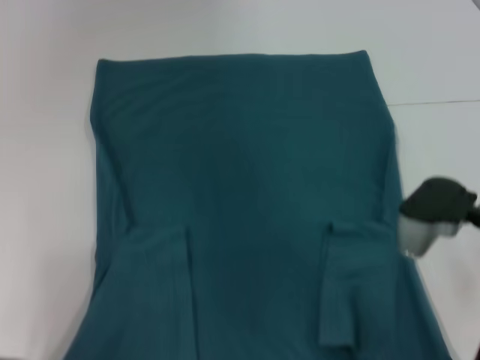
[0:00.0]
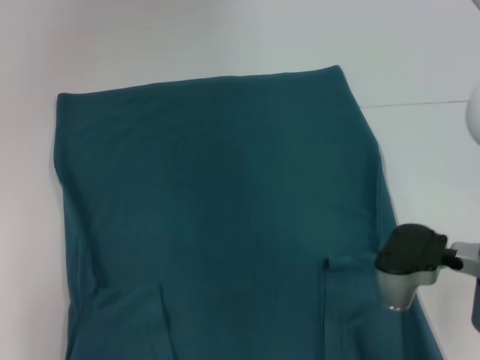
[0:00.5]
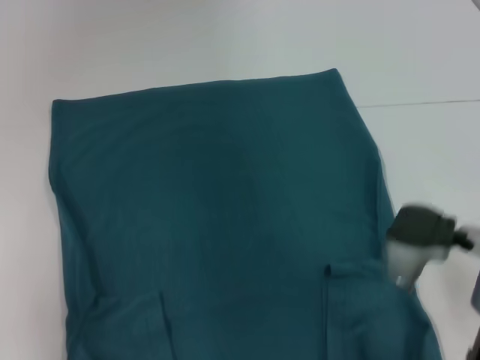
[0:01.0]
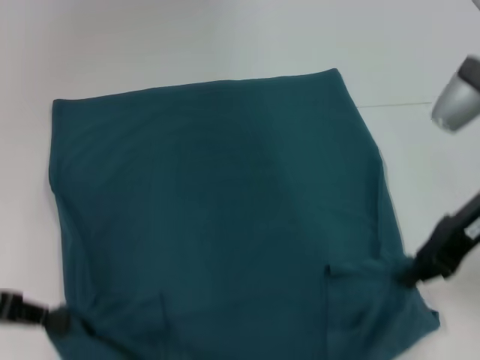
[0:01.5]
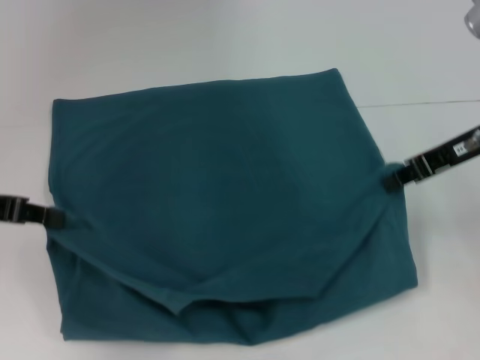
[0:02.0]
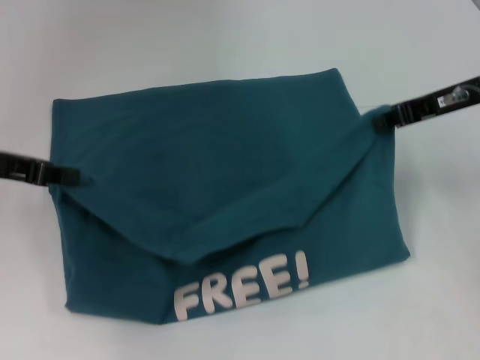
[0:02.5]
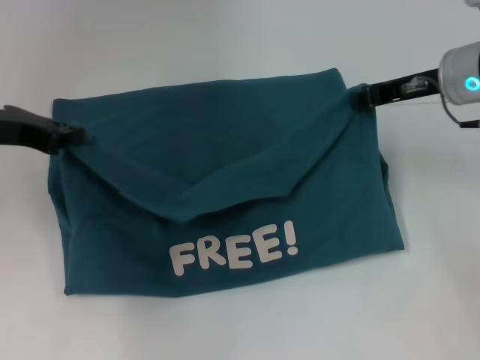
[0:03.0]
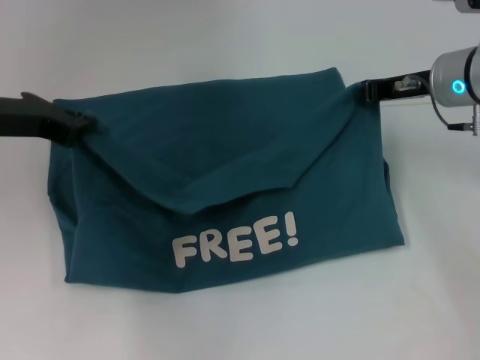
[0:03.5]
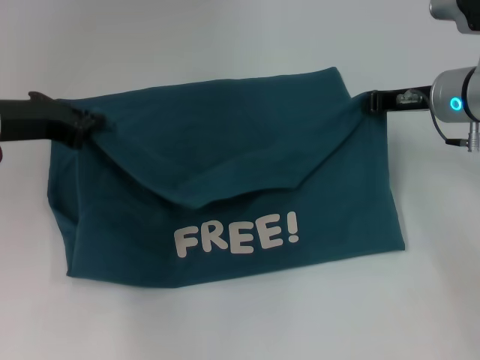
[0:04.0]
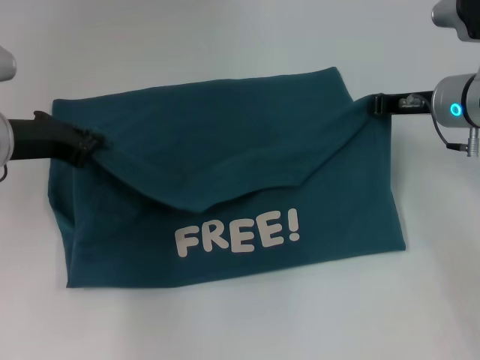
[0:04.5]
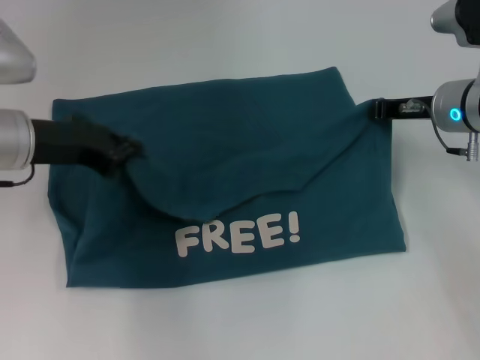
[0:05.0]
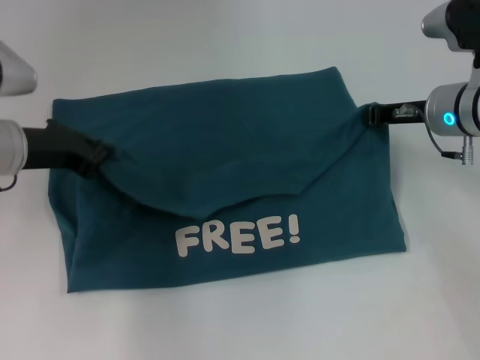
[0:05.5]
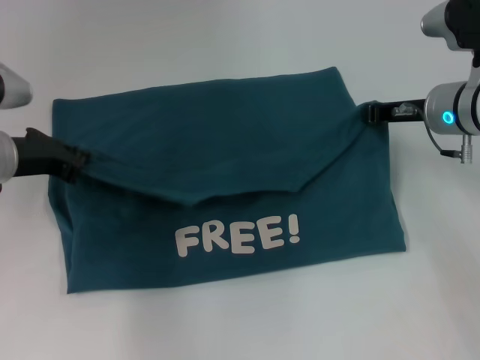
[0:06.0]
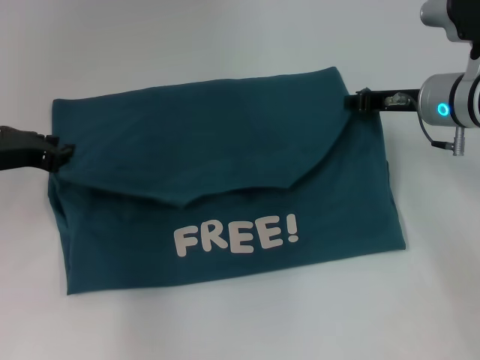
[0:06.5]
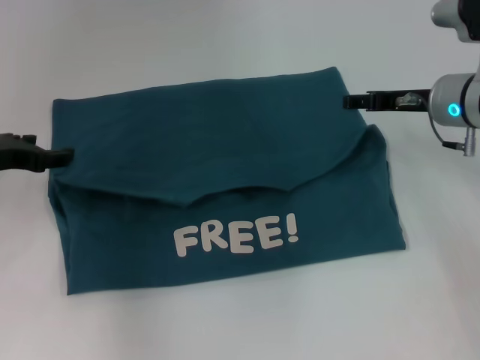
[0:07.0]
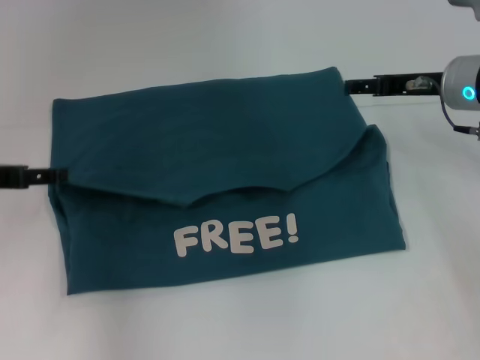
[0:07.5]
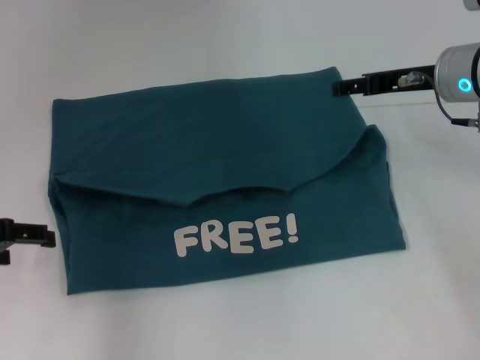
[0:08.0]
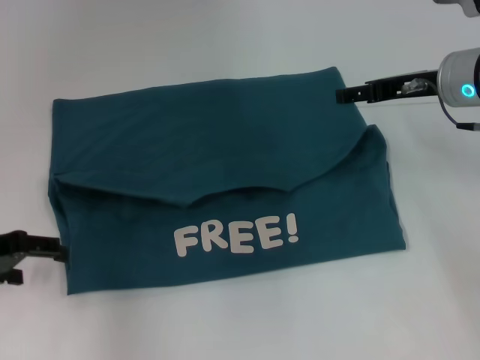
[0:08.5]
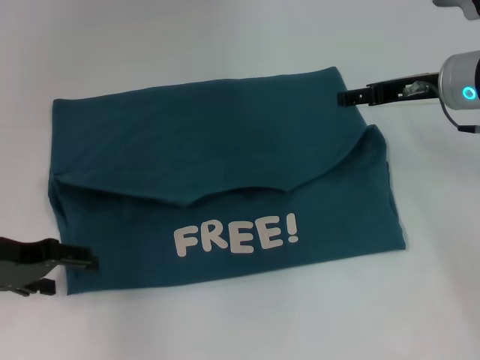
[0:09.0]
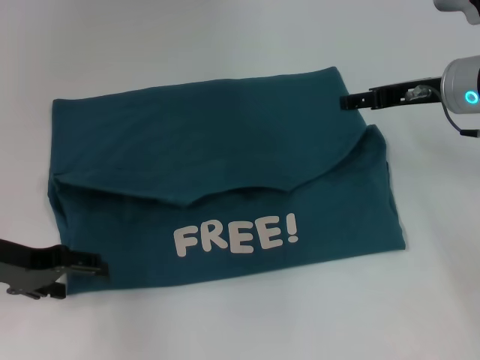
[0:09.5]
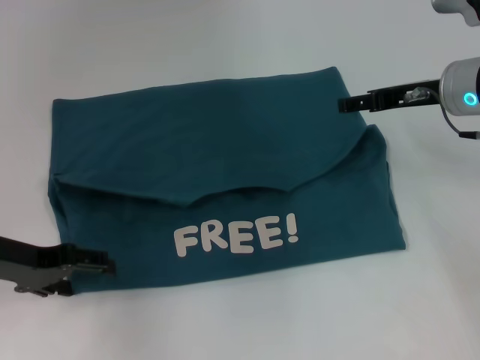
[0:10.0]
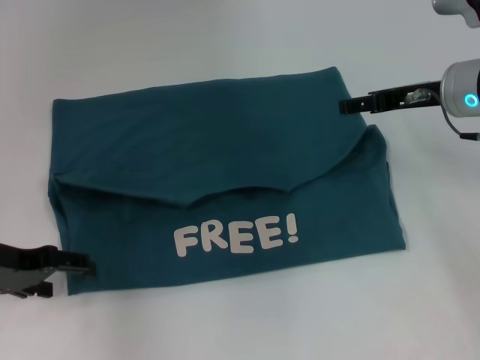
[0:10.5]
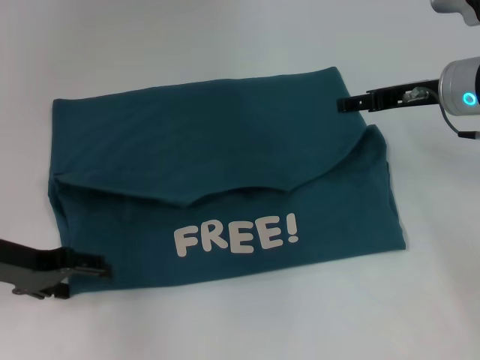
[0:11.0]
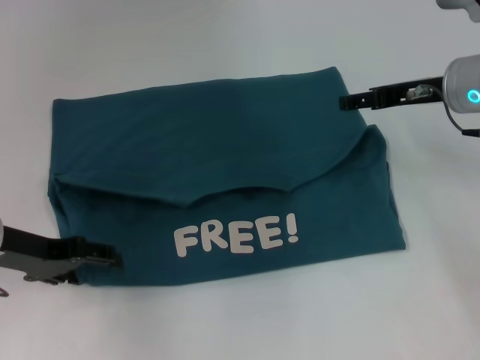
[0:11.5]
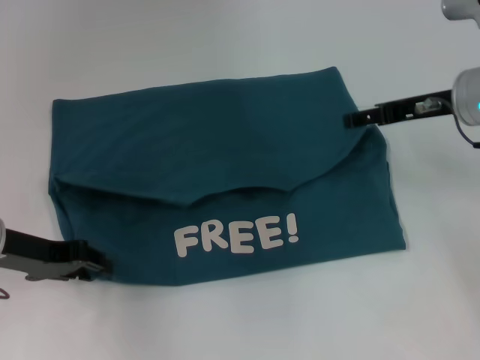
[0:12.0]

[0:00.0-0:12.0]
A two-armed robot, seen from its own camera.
Step, 0.0 to 7.0 s: Fold the clothes to the left.
Step, 0.0 to 7.0 s: Fold the clothes to the right.
0.0 to 2.0 s: The left gripper goes approximately 10 cm forward and upward. The right gripper goes approximately 10 cm upward and forward.
2.0 to 4.0 s: The left gripper moves forward and to the right, about 10 cm, while the right gripper goes about 10 cm forward and downward.
4.0 to 6.0 s: The grippers move only a little.
6.0 to 8.0 s: The right gripper opens up; the left gripper heads backward and to the left, covering about 10 cm, and opens its fingers.
8.0 to 10.0 s: The left gripper changes place by some 5 cm.
10.0 to 12.0 s: The left gripper closes its fingers.

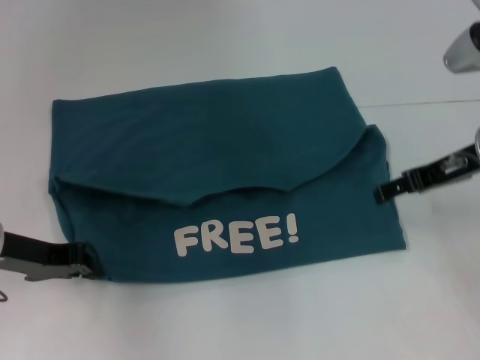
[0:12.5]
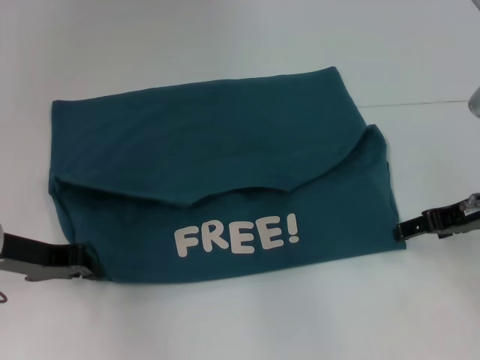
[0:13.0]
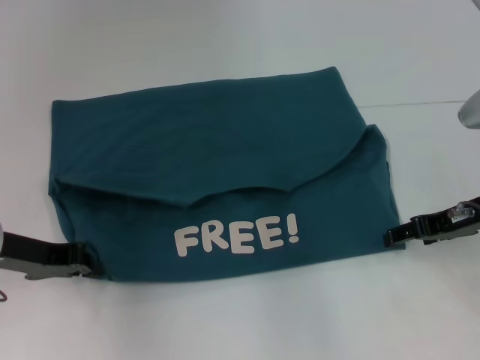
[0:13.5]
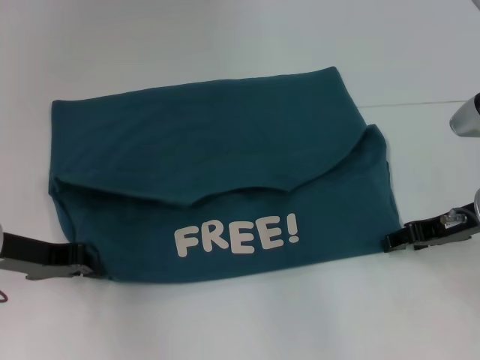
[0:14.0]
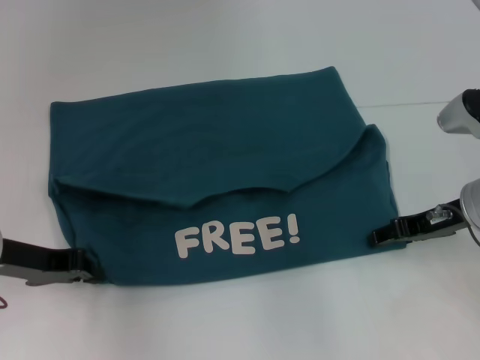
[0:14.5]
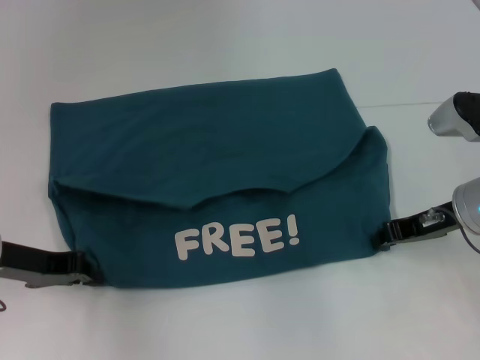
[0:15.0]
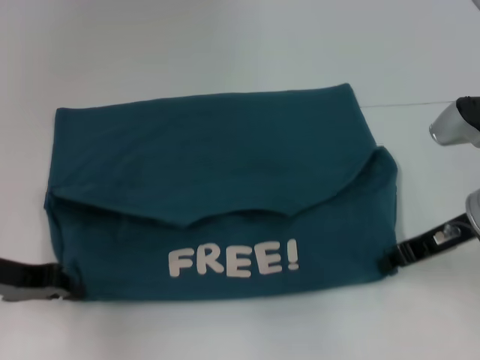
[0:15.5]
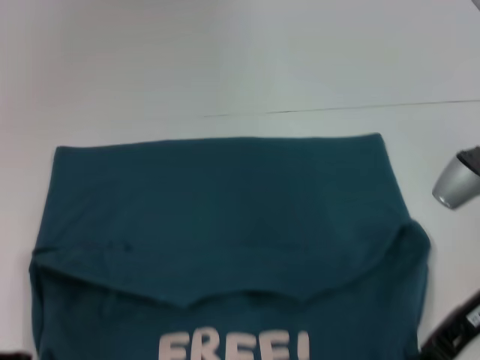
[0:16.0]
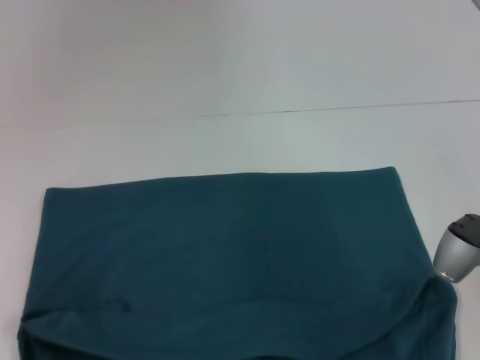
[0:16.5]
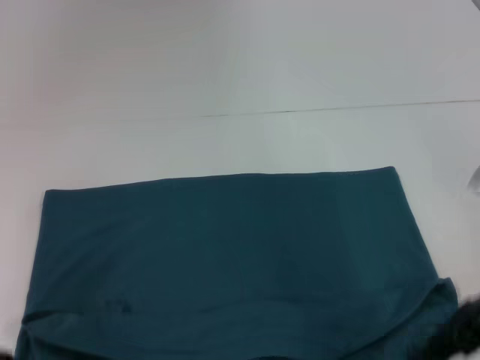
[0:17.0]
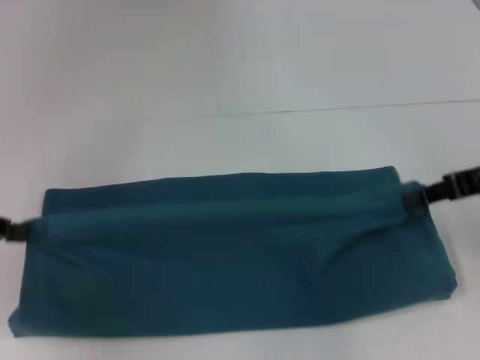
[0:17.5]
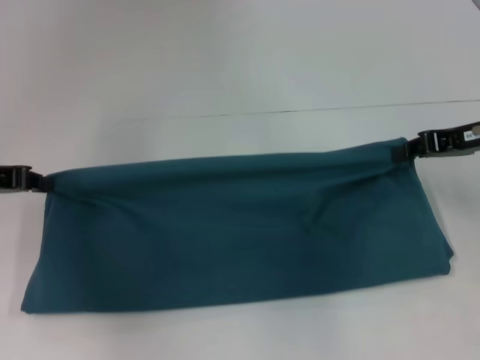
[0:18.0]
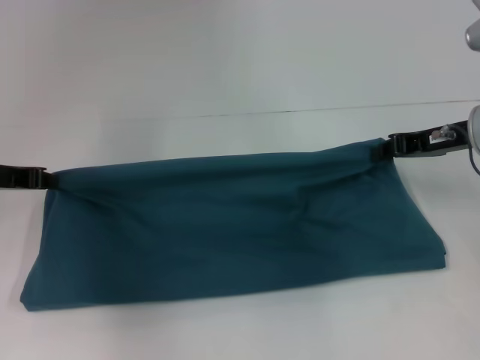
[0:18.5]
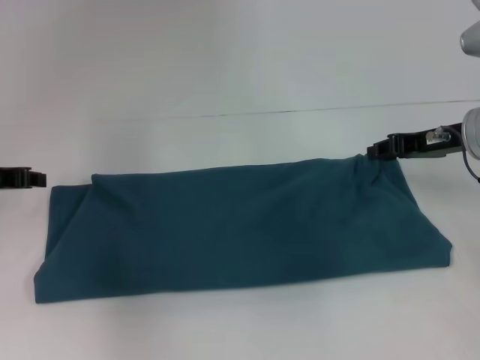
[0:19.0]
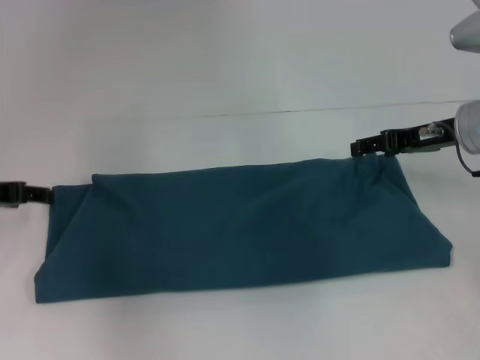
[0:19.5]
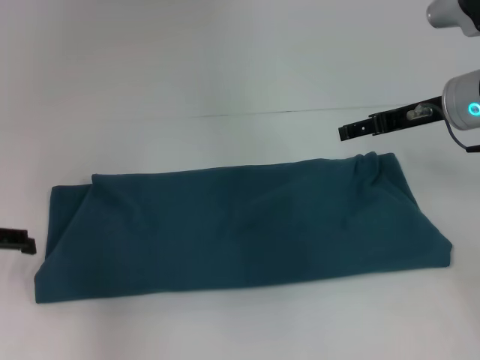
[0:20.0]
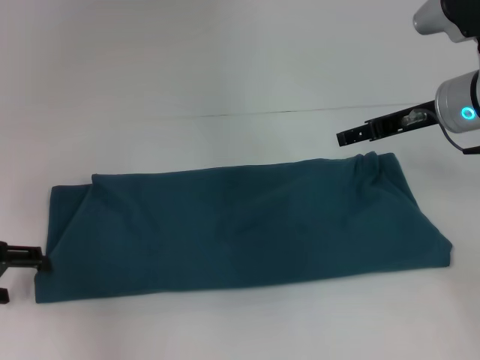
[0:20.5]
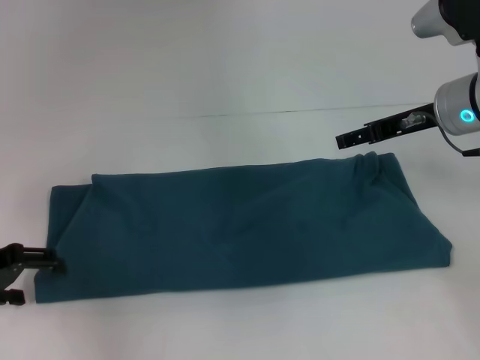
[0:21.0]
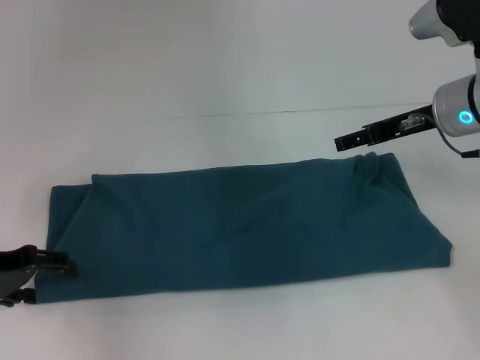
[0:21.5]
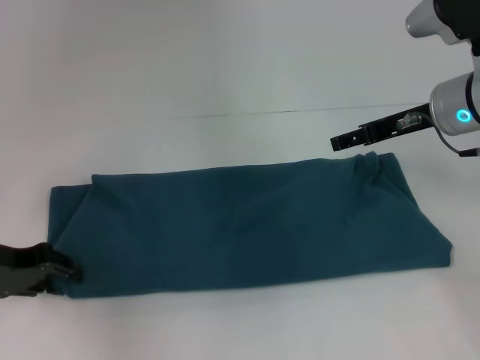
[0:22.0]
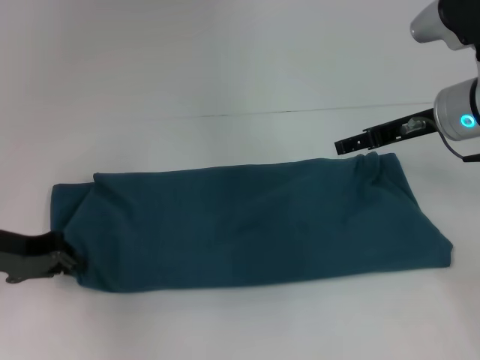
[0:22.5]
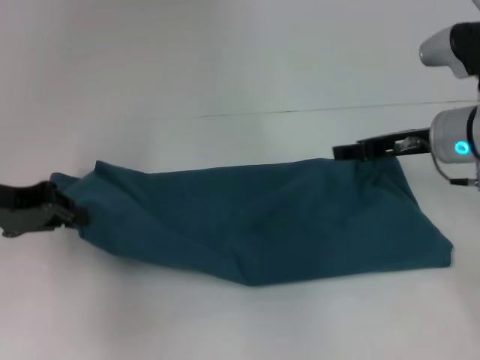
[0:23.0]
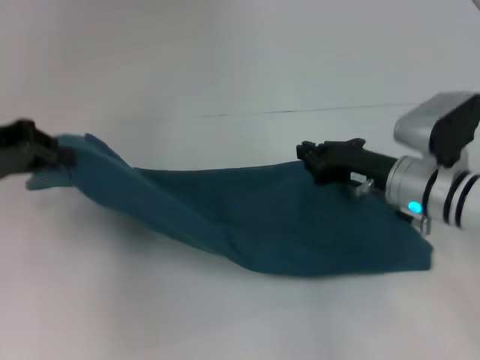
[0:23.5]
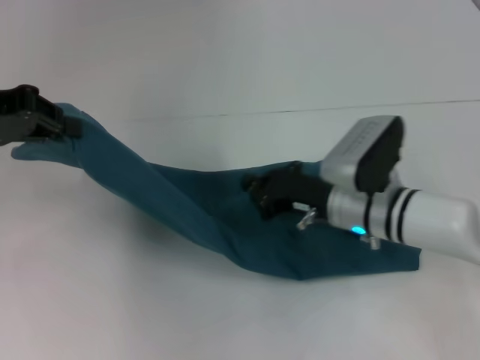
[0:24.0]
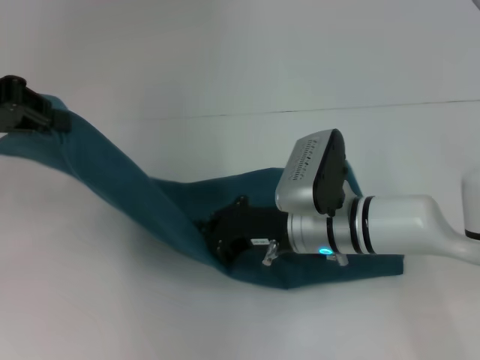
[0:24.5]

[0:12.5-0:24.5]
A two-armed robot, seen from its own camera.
Step, 12.5 to 16.5 s: Pull the clothes with your left hand.
Step, 12.5 to 16.5 s: Pull the clothes with your right hand.
Step, 17.0 to 19.5 s: Fold the clothes to the left.
Step, 17.0 to 19.5 s: Fold the clothes to the right.
12.5 to 14.5 s: The right gripper moves downward, about 5 cm.
14.5 to 16.5 s: Both grippers move backward, roughly 10 cm. The right gripper closes up.
16.5 to 18.5 s: The two grippers go approximately 15 cm forward.
18.5 to 20.5 s: The left gripper travels backward by about 5 cm, and opens its fingers, while the right gripper opens its fingers.
20.5 to 22.5 s: The left gripper closes.
22.5 to 24.5 s: The right gripper is displaced to the left, downward and backward by some 20 cm, and closes its fingers. Meanwhile the left gripper is displaced upward by about 15 cm.

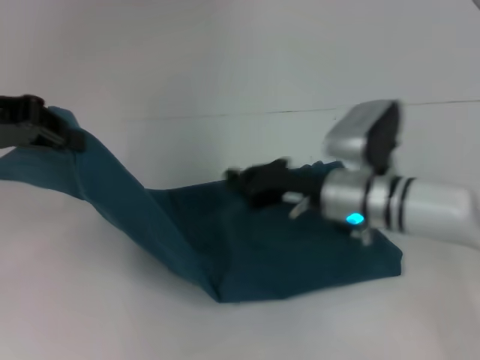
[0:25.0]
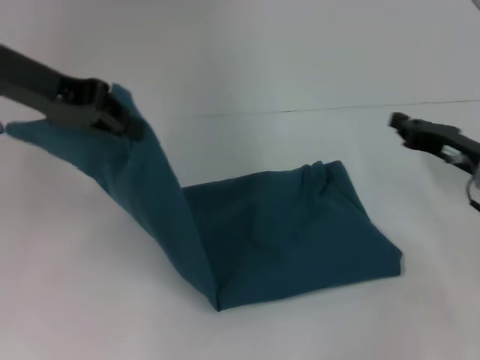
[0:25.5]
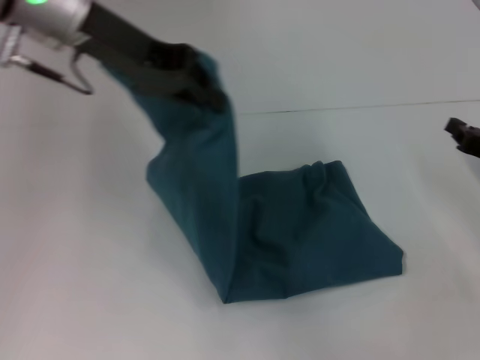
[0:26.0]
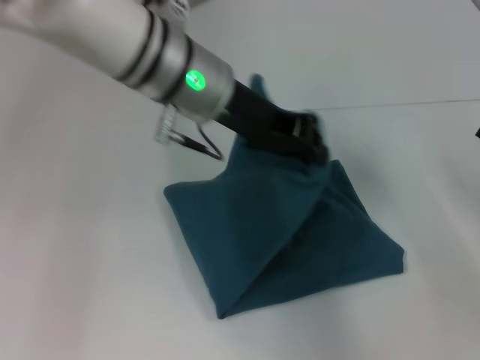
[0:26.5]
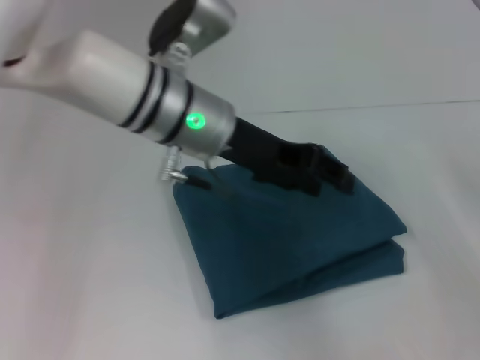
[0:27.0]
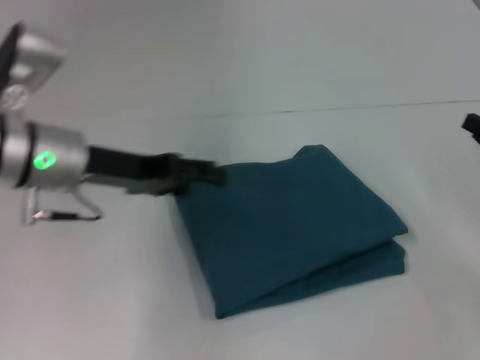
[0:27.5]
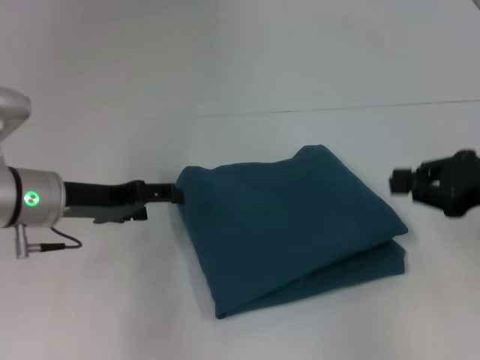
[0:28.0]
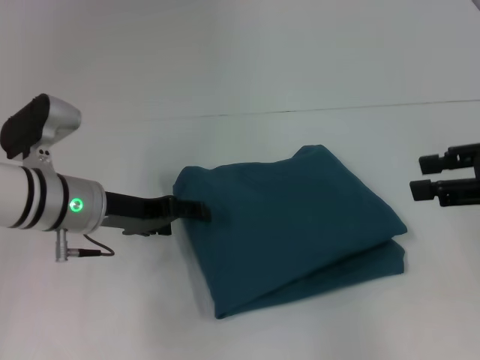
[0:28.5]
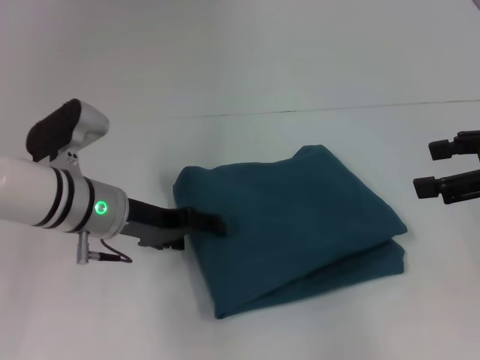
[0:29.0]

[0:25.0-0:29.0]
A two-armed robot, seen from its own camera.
Step, 25.0 to 26.5 s: Fold the clothes to the left.
25.0 to 27.0 s: Both grippers travel together to the right, approximately 25 cm.
27.0 to 29.0 s: The right gripper moves upward, approximately 15 cm, and opens its fingers; the left gripper shifts about 15 cm downward and to the left, and opens its fingers.
